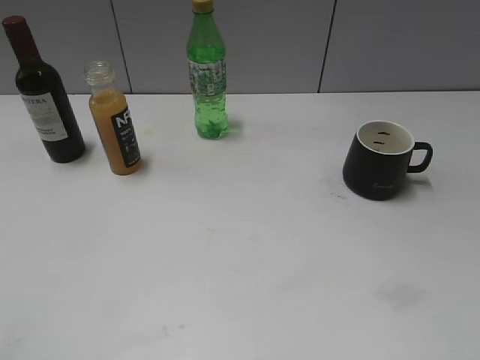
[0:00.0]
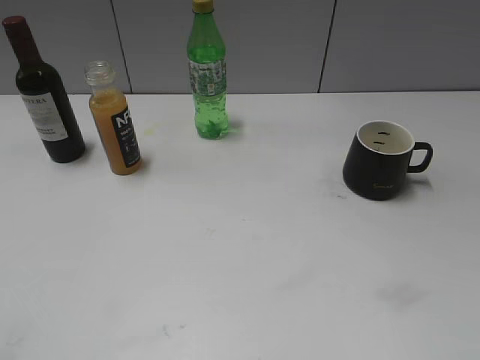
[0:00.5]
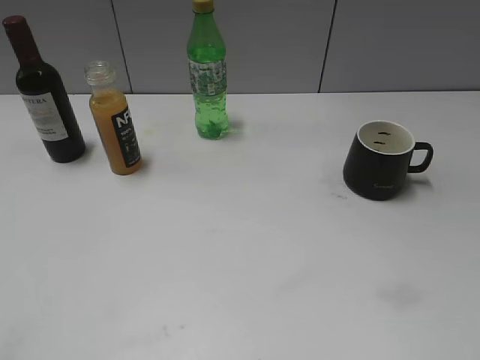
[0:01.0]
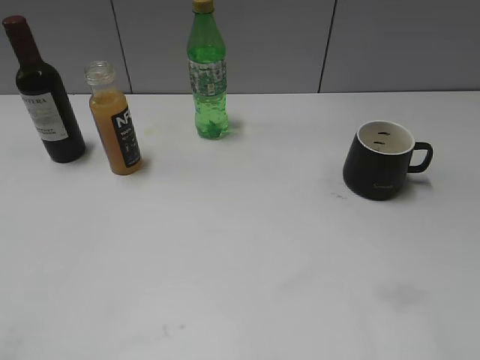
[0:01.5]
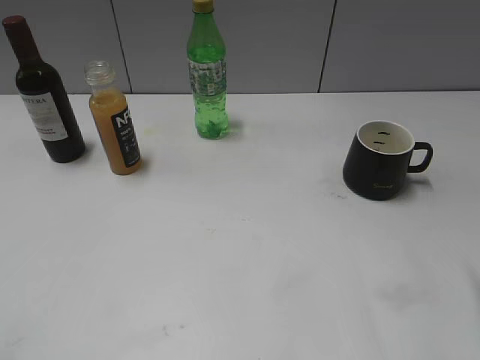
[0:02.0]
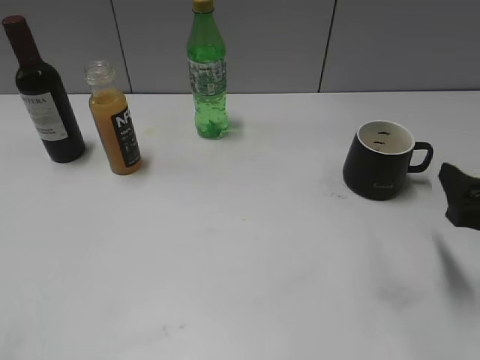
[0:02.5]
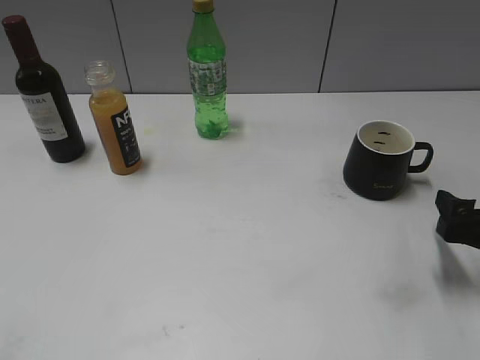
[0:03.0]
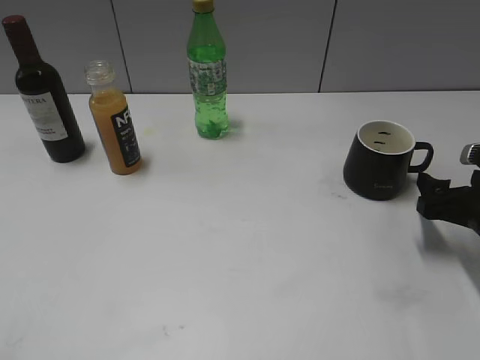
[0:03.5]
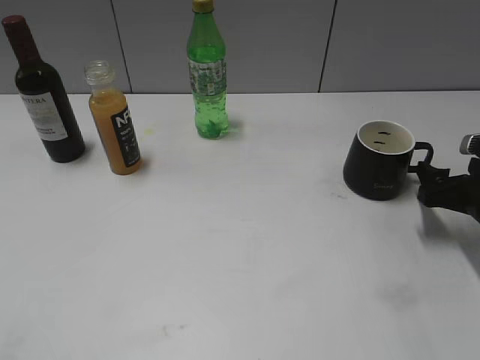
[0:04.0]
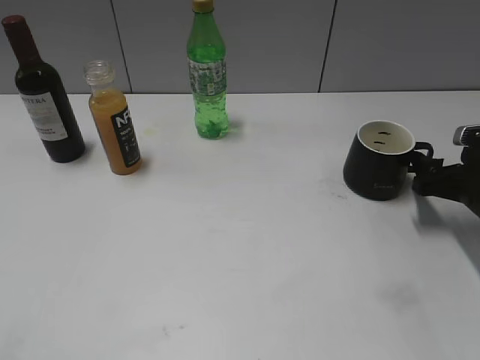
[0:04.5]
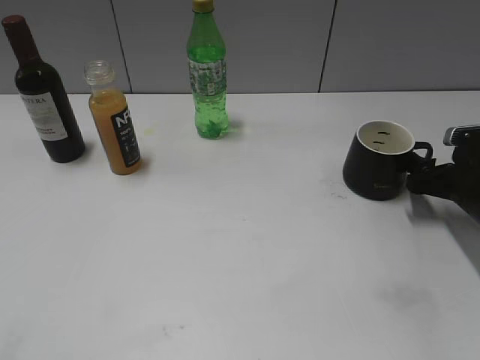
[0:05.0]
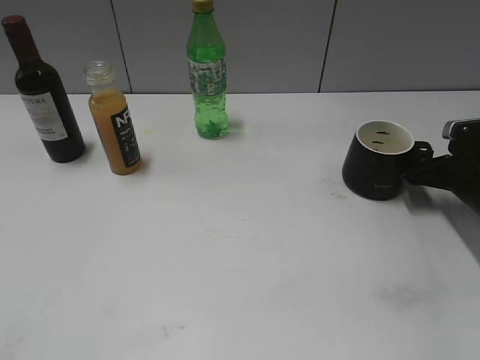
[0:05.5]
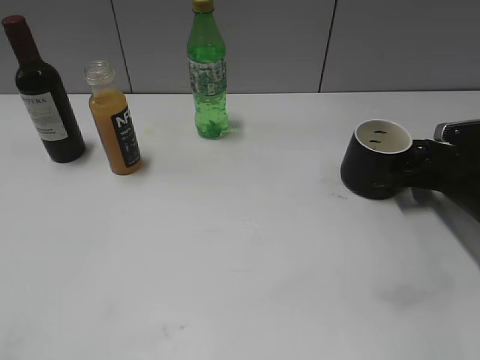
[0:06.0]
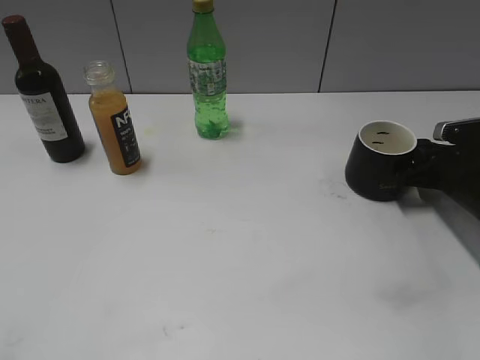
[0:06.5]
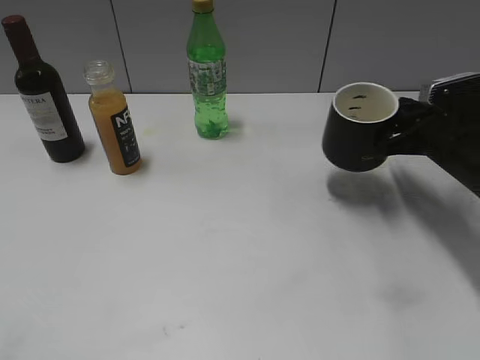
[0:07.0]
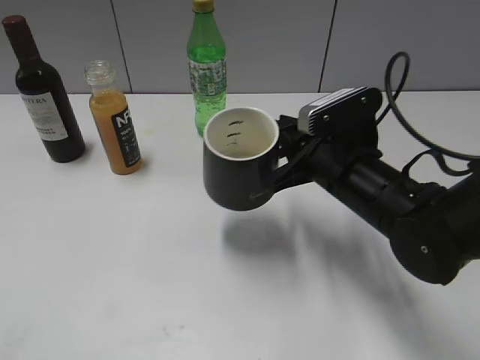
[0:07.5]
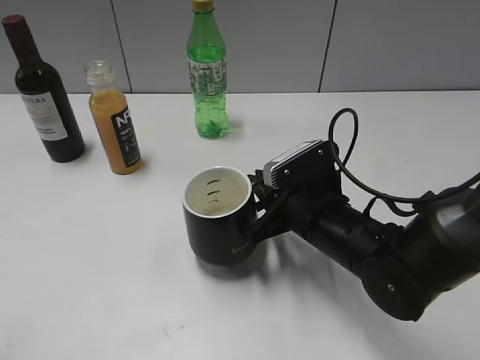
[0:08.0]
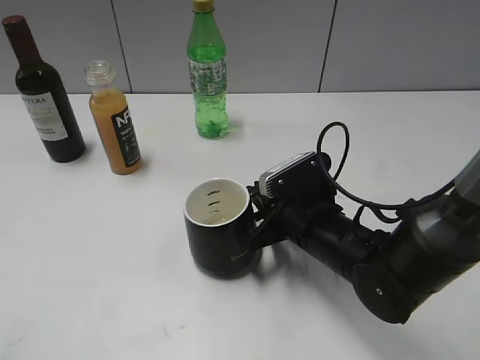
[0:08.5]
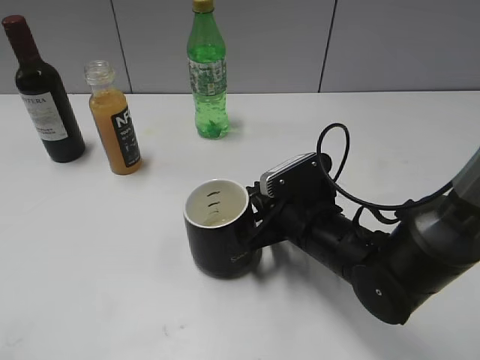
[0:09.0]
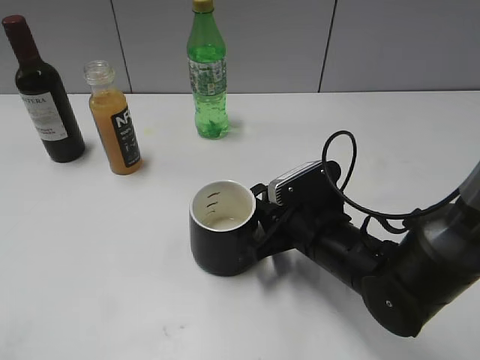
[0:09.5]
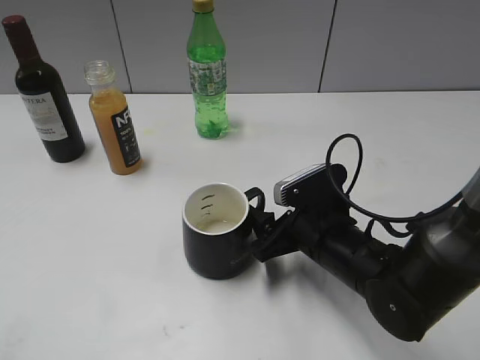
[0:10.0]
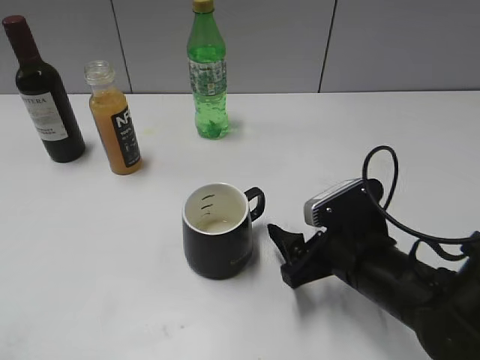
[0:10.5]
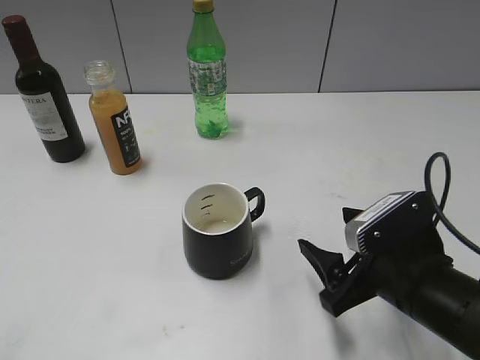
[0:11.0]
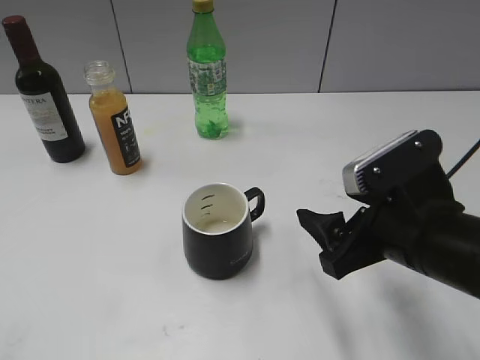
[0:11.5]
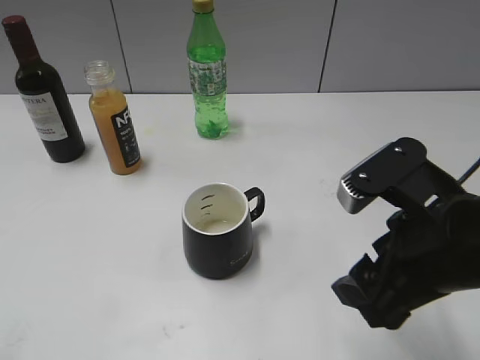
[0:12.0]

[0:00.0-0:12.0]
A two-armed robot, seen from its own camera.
Step, 0:02.5 to 0:06.5: Grasp the black cup with right gripper.
Step, 0:07.0 to 0:09.5: Place the black cup in the center of view with right gripper.
0:02.0 to 0:04.0: The right gripper moves forward and downward, roughly 20 cm.
0:04.0 to 0:06.0: The right gripper is displaced forward by approximately 5 cm, and closes its fingers.
0:06.0 to 0:08.0: The right gripper shifts about 20 cm to the left, and closes up.
0:08.0 to 0:10.0: The right gripper opens up.
0:10.0 to 0:12.0: The right gripper is displaced upward and backward by about 15 cm.

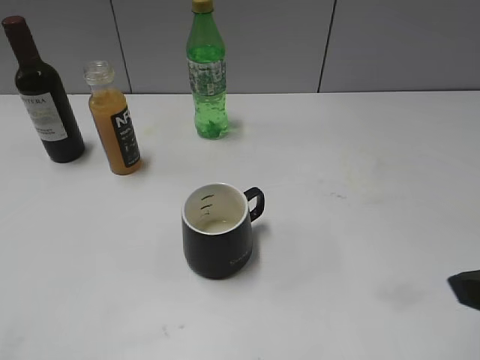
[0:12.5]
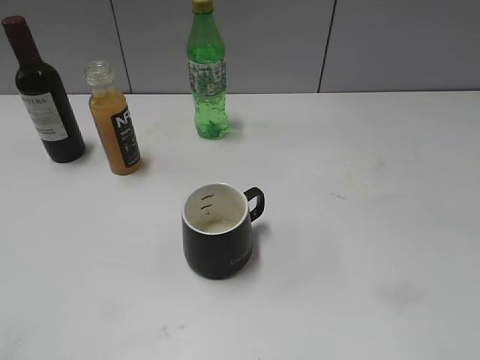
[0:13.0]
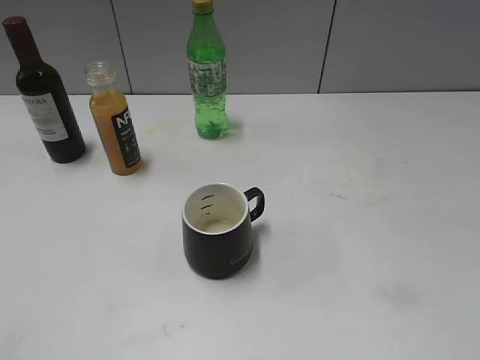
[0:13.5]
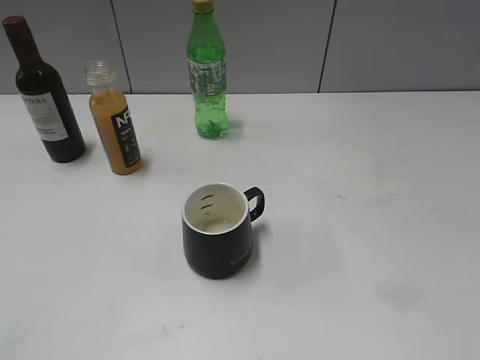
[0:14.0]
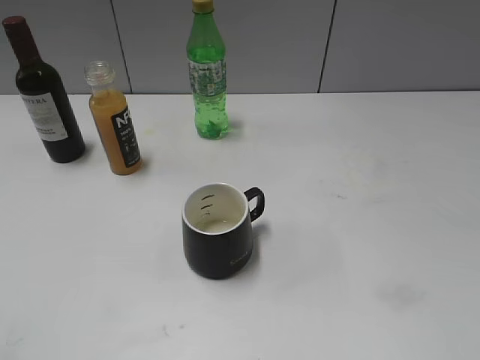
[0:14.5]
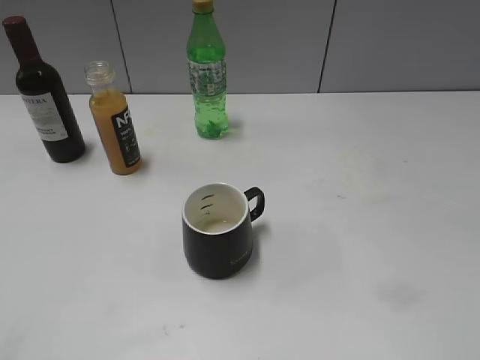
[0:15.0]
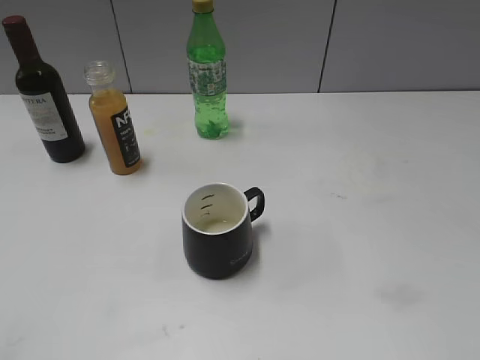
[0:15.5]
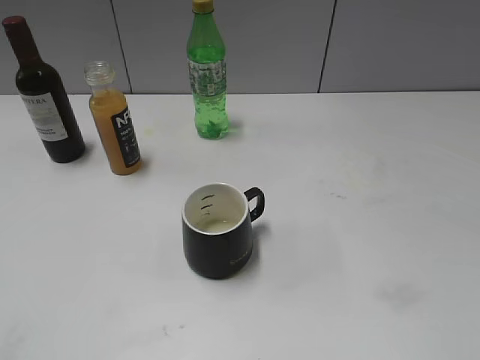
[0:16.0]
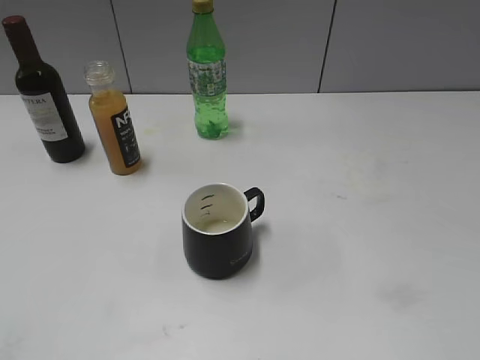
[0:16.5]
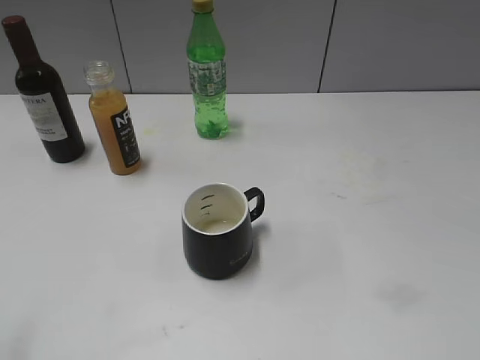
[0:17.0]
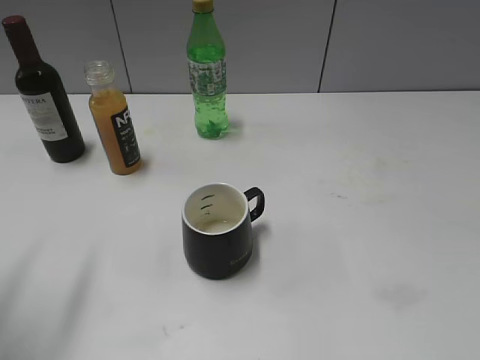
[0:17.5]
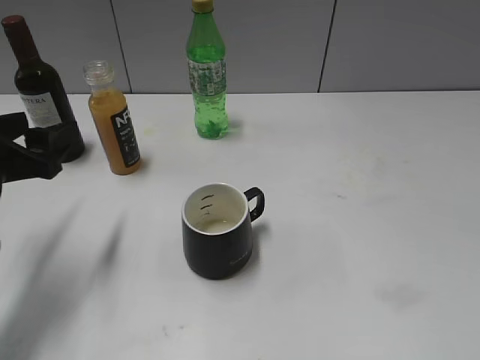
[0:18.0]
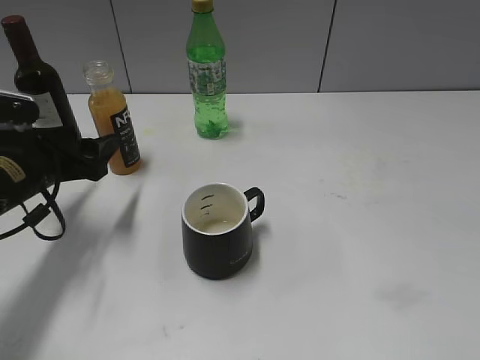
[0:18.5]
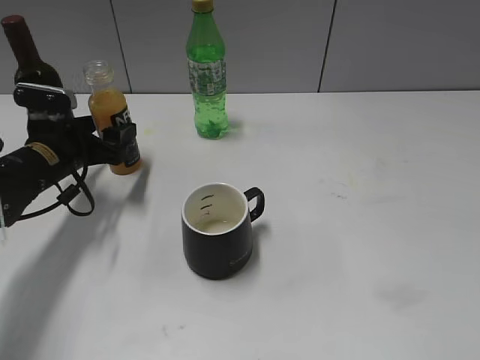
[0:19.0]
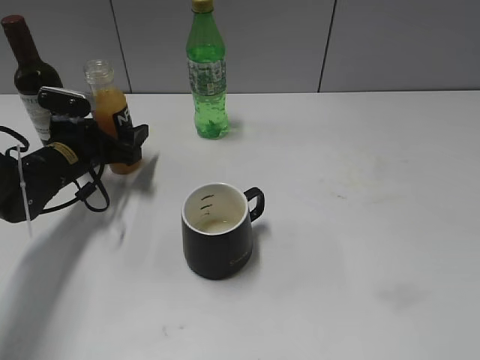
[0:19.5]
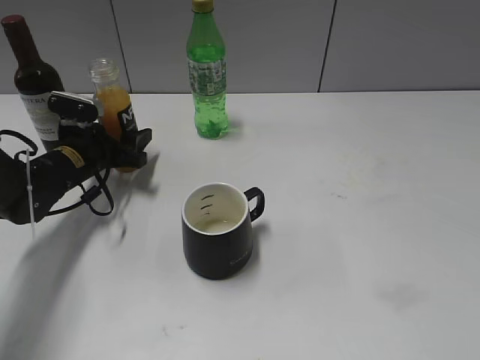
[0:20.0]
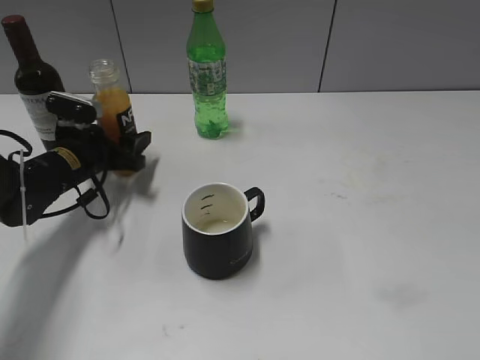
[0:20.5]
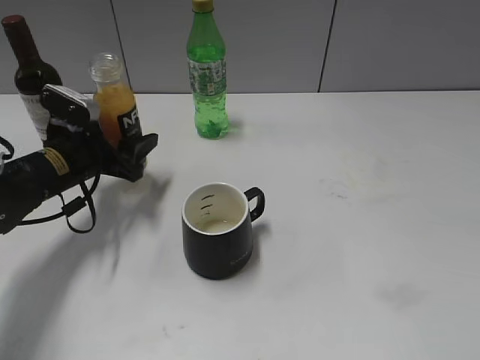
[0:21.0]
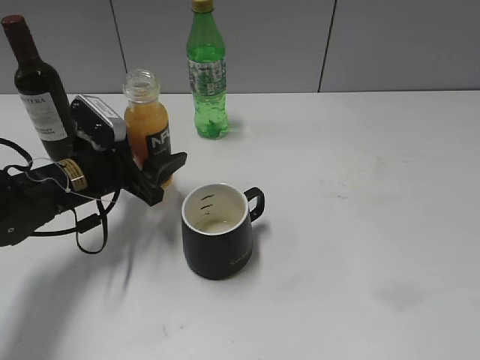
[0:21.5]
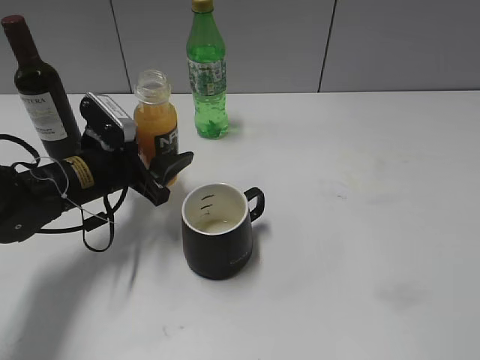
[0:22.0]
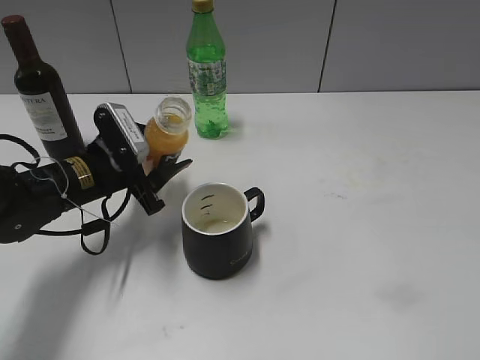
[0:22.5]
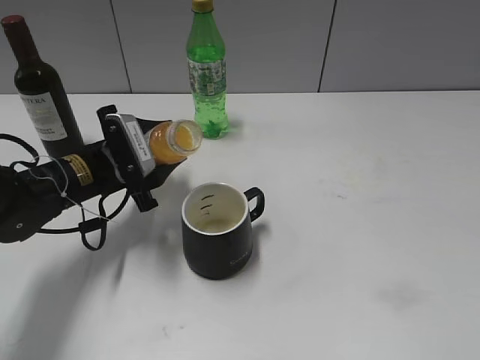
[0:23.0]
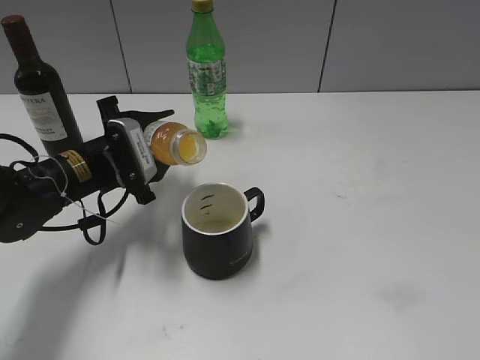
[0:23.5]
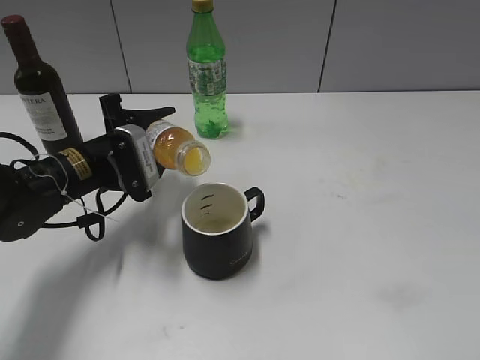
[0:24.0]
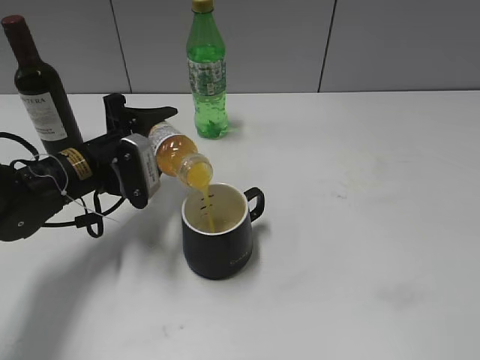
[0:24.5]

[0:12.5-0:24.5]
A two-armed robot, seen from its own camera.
Step, 0:12.5 to 0:20.0: Grasp the bottle with orange juice with left gripper.
0:16.5 to 0:18.5: The left gripper travels forward and downward by roughly 35 cm.
0:18.5 to 0:20.5: The left gripper shifts approximately 10 cm forward and downward.
0:20.5 to 0:22.5: The left gripper heads backward, covering roughly 5 cm.

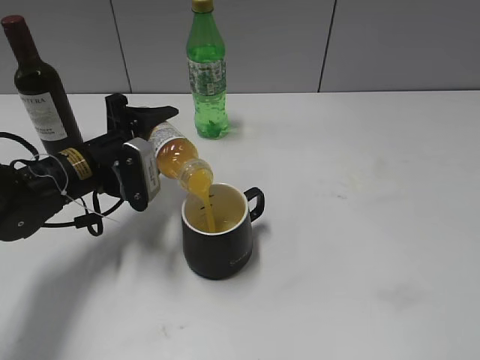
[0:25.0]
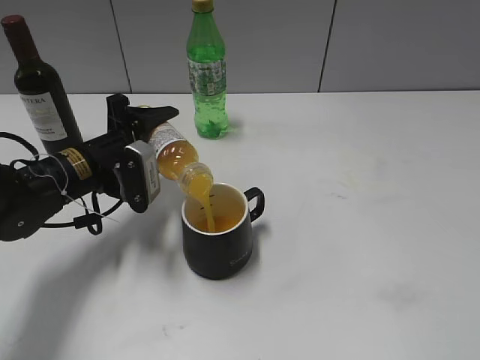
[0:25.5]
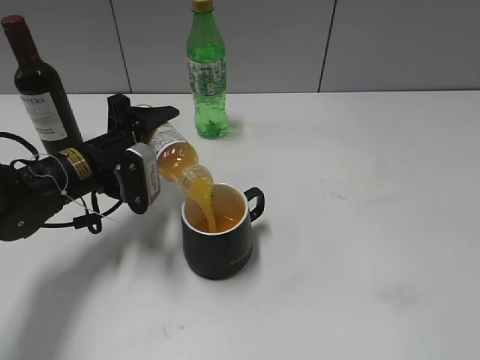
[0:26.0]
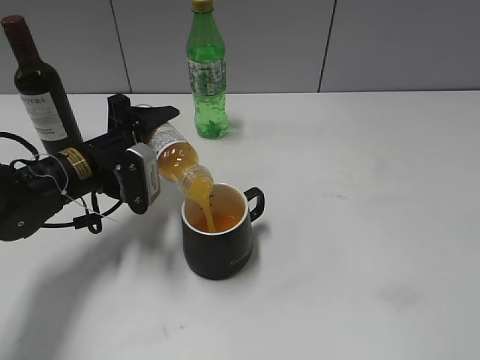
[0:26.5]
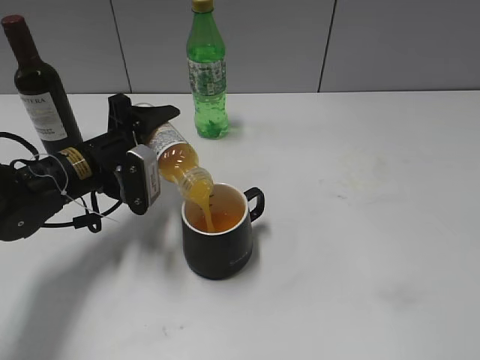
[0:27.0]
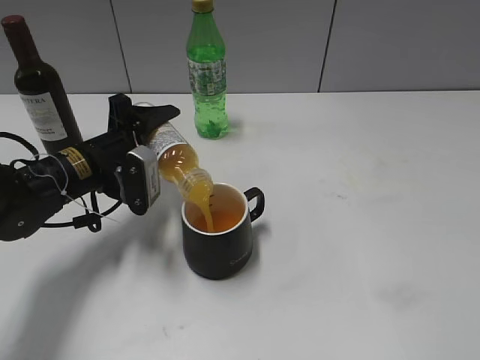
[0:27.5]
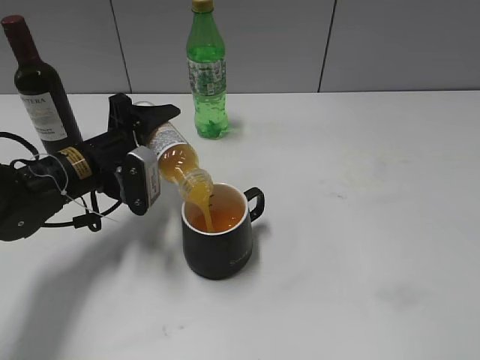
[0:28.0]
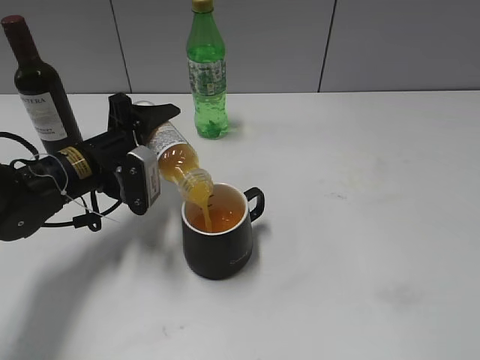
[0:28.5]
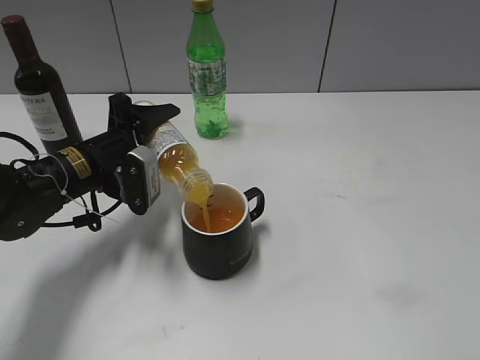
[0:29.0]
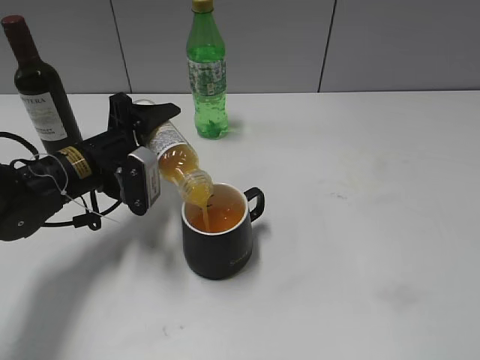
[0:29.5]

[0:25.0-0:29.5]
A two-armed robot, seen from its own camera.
0:25.0 to 0:27.0: The grippers make only small movements.
0:27.0 to 0:29.5: The two grippers keep their place.
